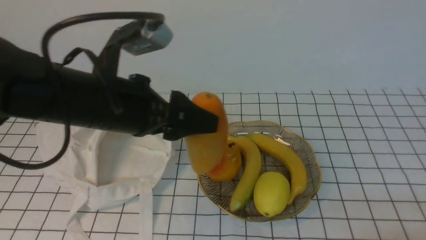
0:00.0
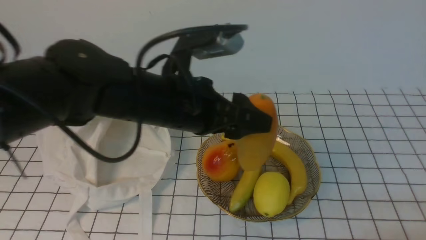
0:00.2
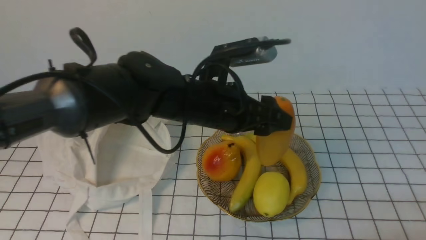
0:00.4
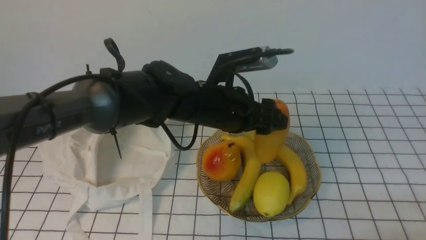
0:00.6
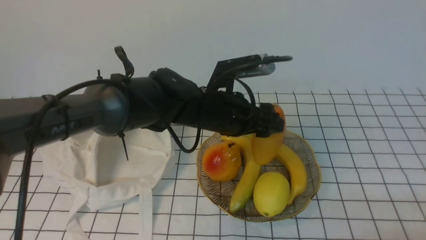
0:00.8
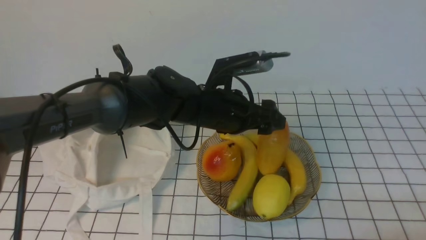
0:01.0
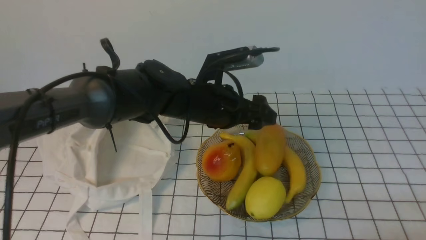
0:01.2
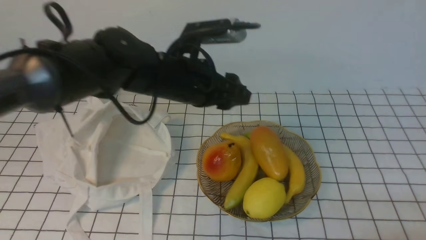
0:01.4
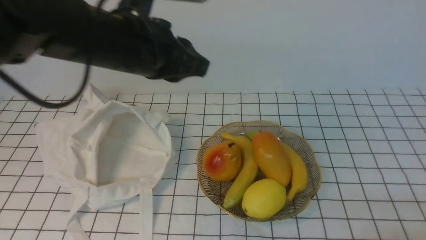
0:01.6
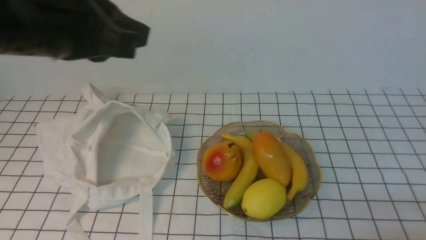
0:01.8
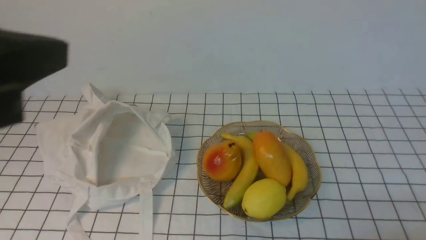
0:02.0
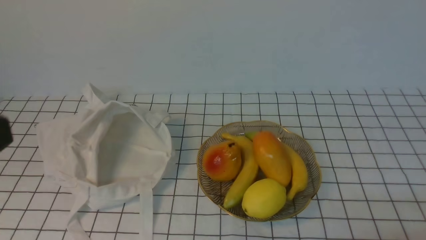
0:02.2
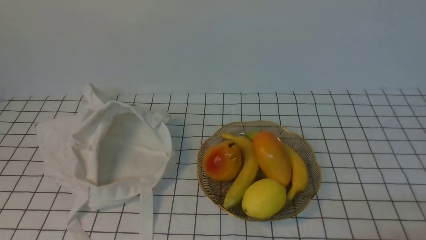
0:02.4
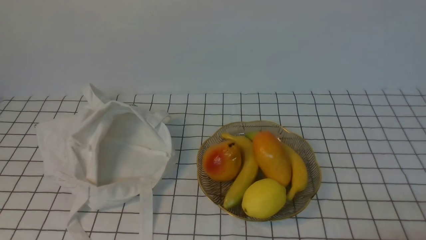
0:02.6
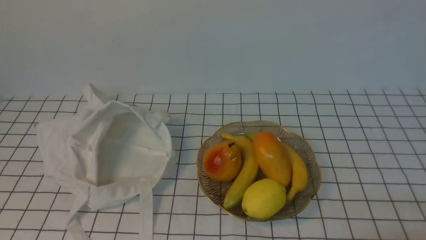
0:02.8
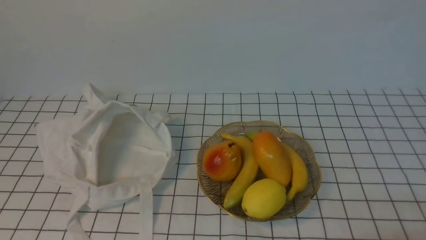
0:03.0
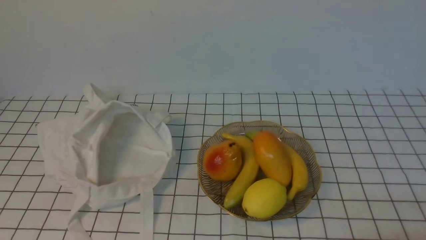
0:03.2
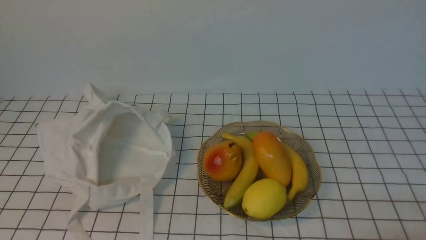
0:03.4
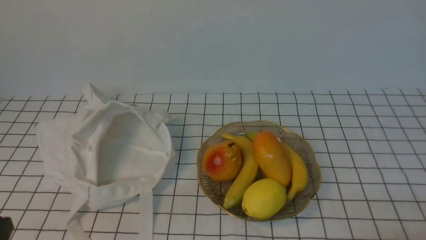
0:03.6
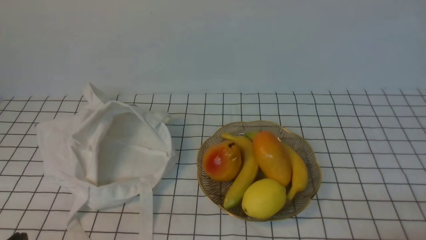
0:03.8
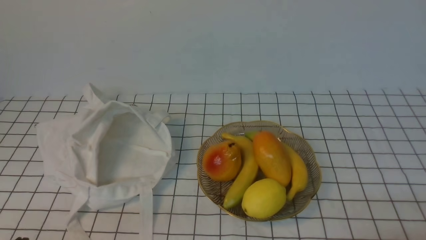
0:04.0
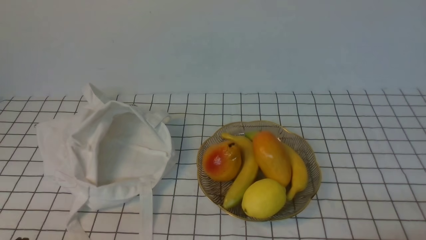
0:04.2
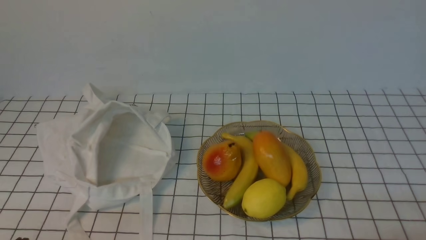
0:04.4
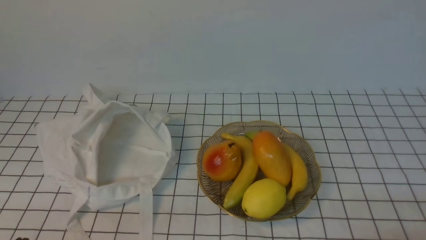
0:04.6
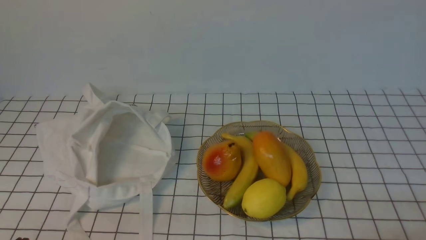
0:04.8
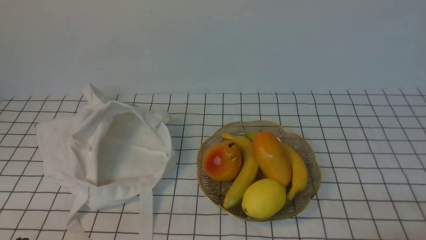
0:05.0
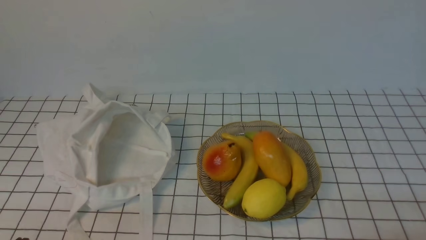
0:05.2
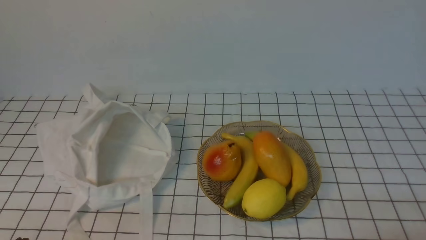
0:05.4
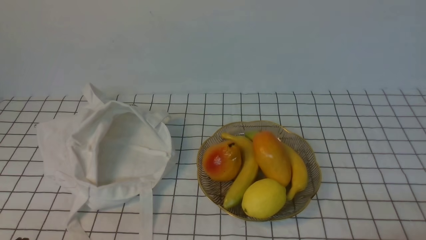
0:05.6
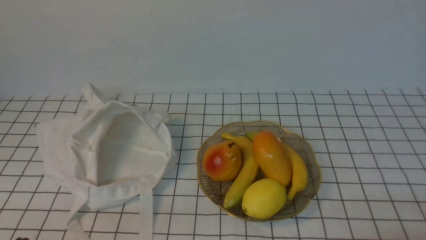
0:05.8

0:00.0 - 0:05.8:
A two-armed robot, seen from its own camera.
0:00.0 - 0:01.4: The left gripper moves to the right and forward, approximately 15 cm.
0:01.4 - 0:02.8: The left gripper moves backward and to the left, some 40 cm, and closes its fingers.
0:04.4 - 0:05.8: Neither gripper changes place.

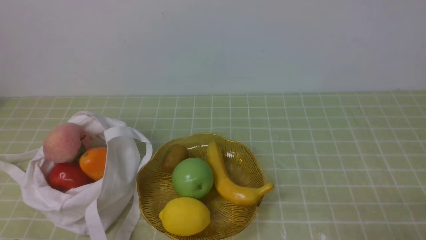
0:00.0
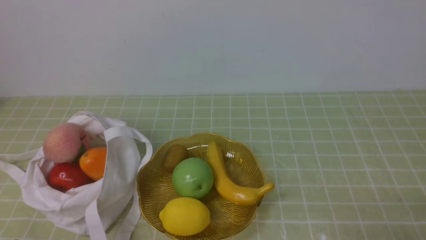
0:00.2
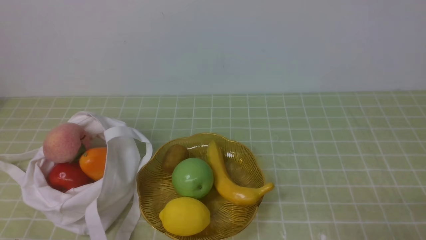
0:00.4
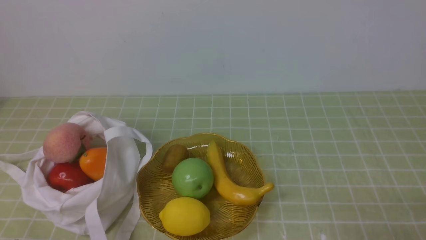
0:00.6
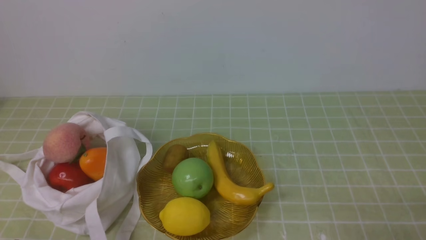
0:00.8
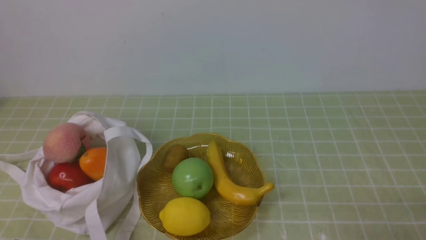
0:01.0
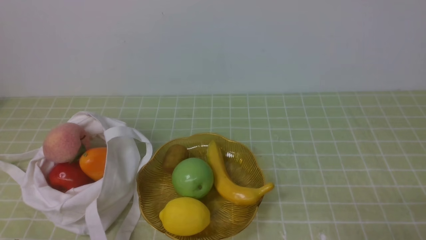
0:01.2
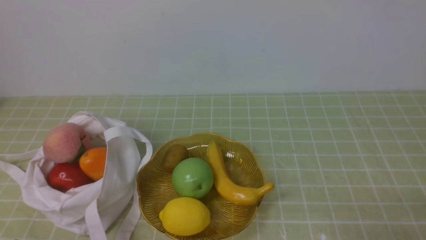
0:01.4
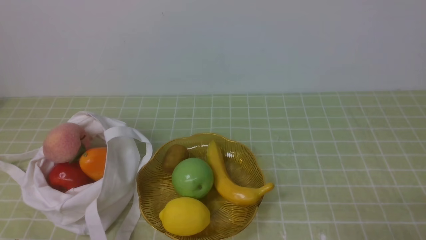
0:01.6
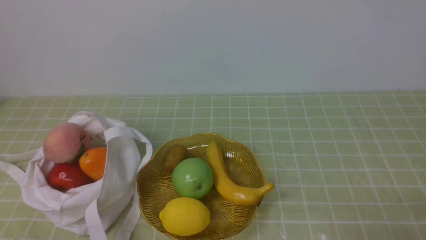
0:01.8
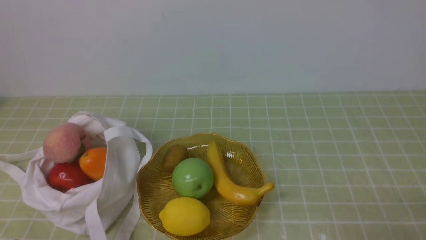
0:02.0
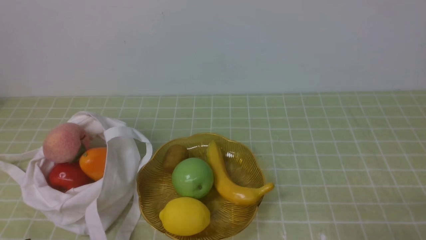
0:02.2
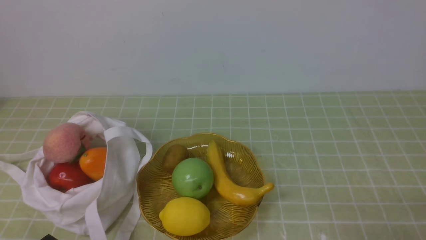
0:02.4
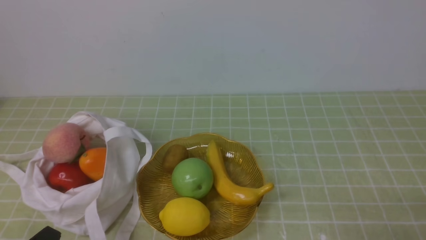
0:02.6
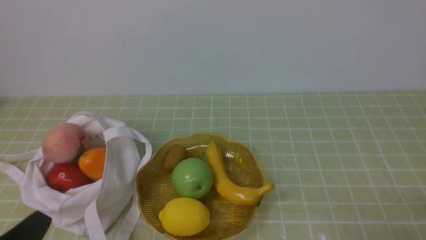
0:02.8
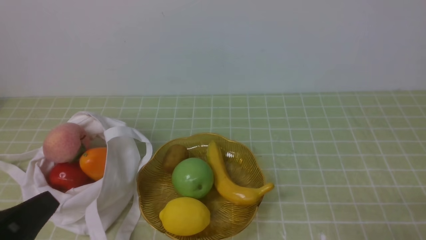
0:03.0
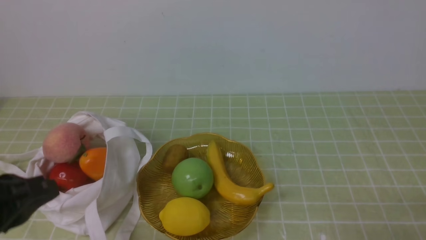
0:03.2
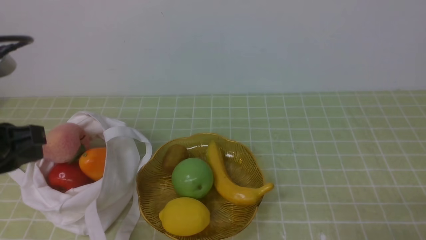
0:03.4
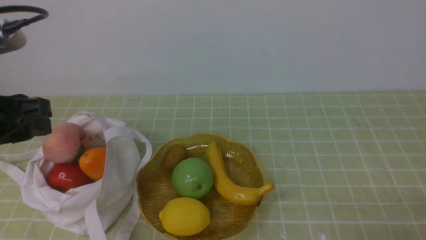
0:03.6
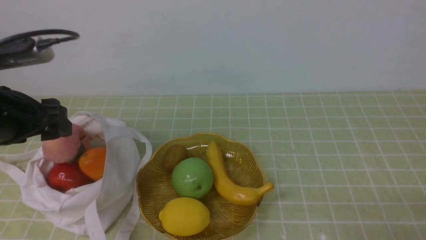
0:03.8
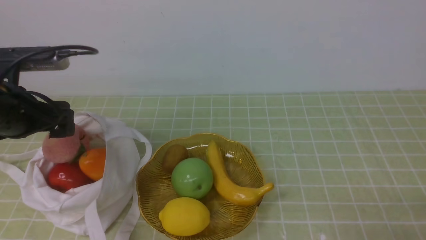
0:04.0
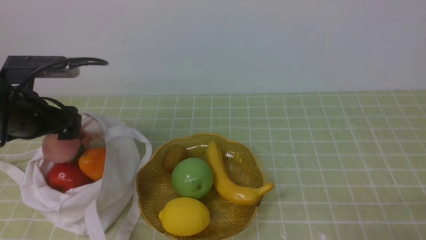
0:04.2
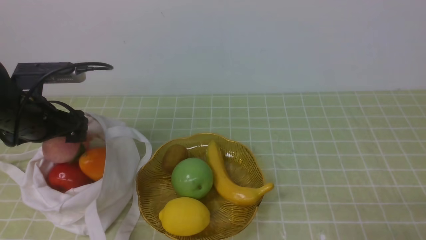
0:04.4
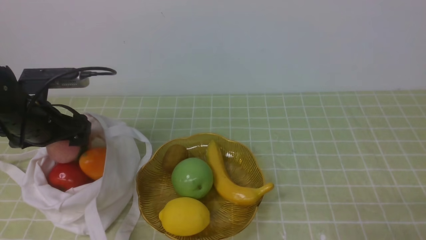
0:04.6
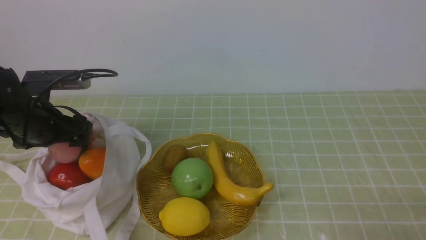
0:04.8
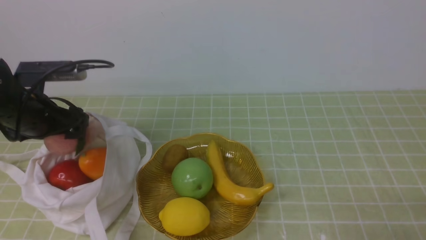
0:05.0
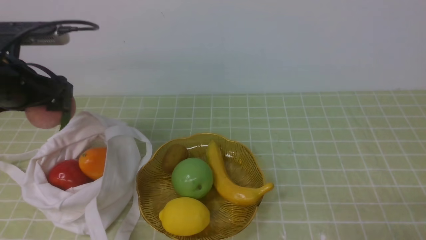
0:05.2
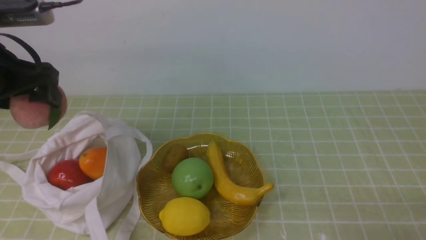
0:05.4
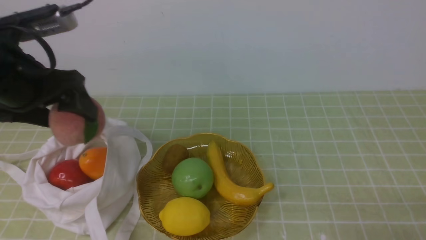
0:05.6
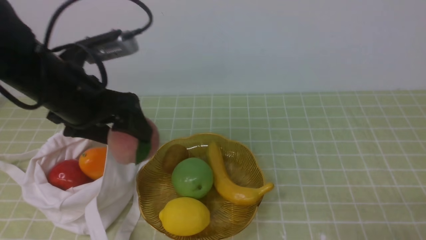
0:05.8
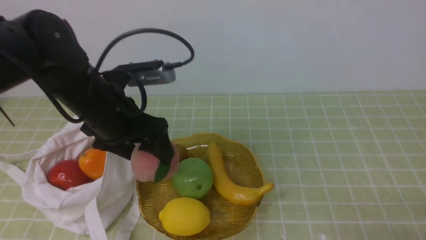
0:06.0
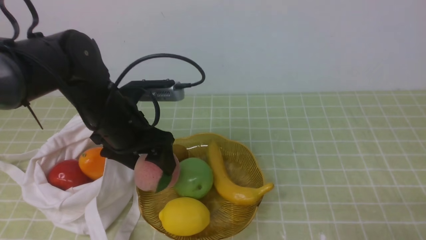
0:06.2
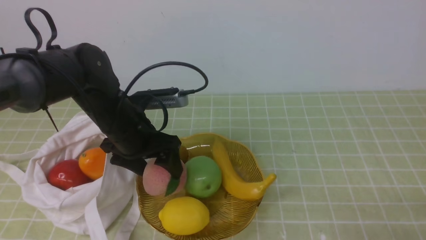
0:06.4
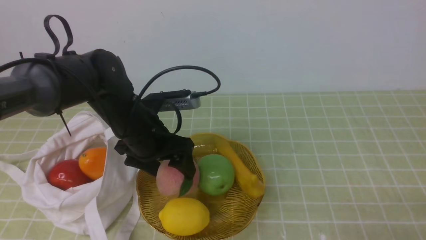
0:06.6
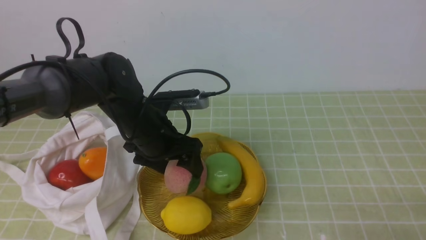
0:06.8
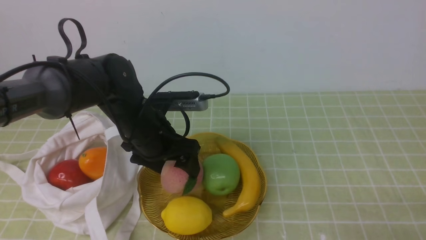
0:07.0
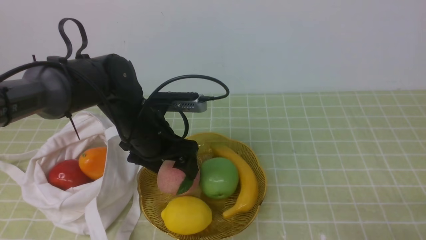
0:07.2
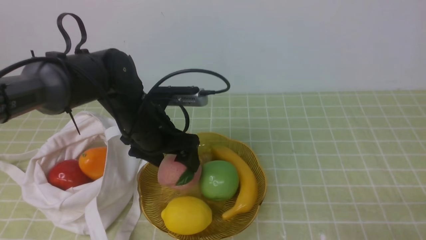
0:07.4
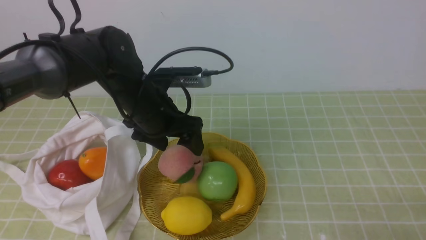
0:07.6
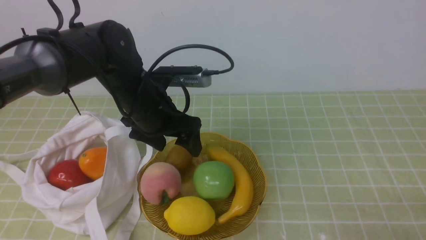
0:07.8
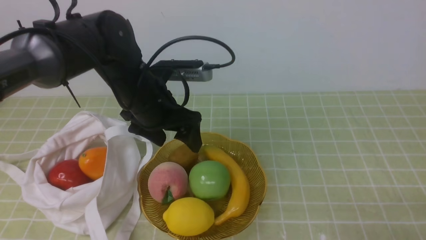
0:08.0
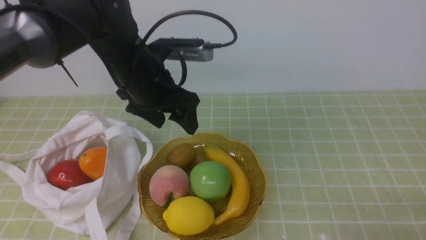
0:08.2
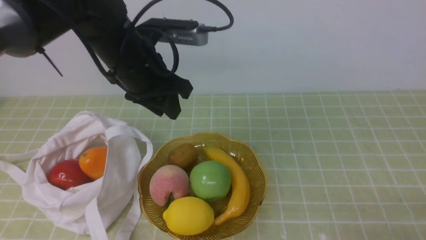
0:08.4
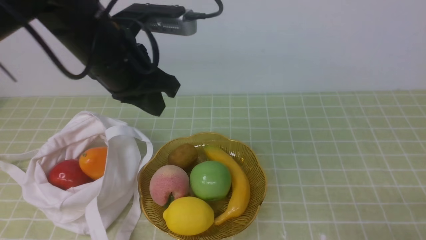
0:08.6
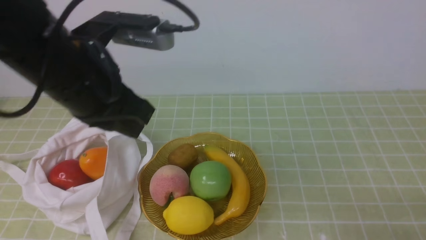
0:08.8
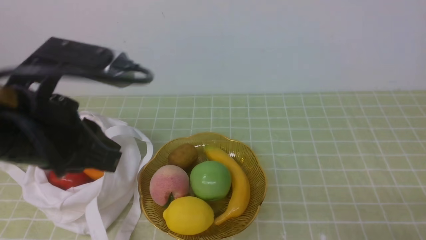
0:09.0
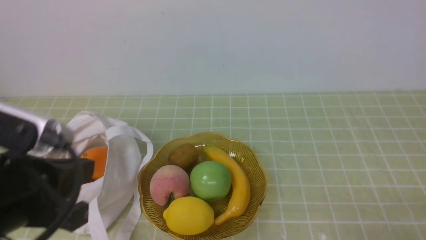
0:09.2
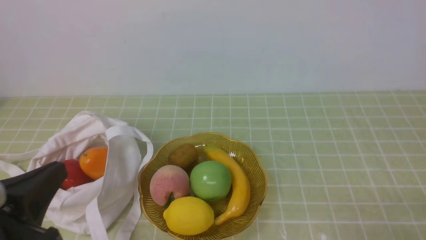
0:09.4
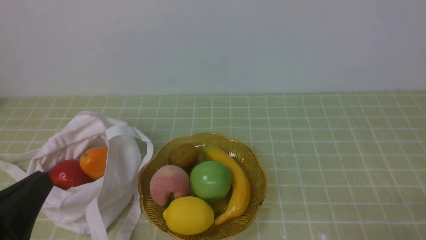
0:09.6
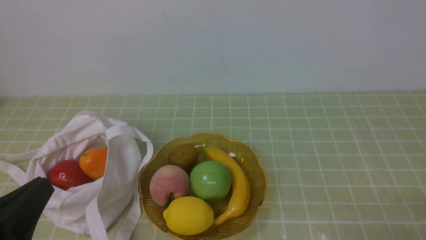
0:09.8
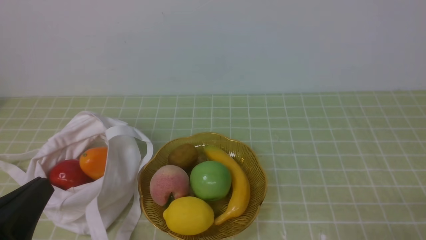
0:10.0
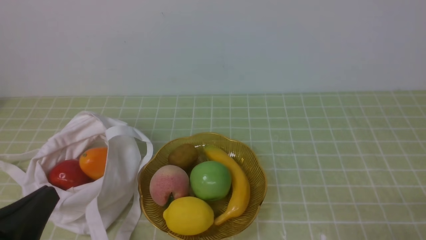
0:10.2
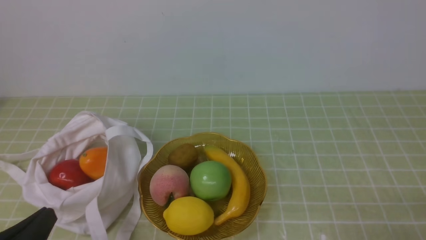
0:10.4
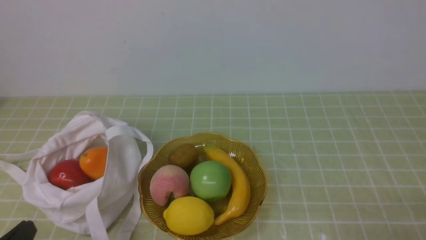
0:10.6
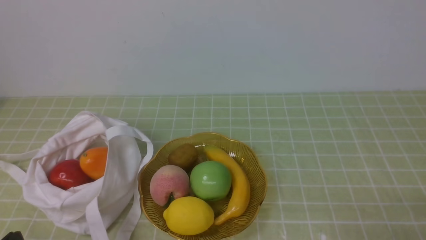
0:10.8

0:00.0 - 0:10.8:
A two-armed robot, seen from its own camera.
Step, 0:00.0 - 0:05.0: use the left arm to grab a peach from the bag.
Step, 0:05.4 - 0:07.6: use the left arm to put the peach into the empty plate on the right.
0:00.0 - 0:01.6: Neither gripper changes place.
0:01.6 - 0:03.0: The left gripper goes about 10 cm upward.
0:03.0 - 0:04.6: The left gripper shifts approximately 25 cm forward, and opens its fingers.
0:04.6 - 0:06.2: The left gripper shifts about 15 cm to the right.
0:06.2 - 0:07.8: The grippers move only a little.
0:07.8 - 0:09.2: The left gripper heads backward and to the left, covering about 25 cm, and closes.
0:09.2 - 0:10.8: The left gripper moves downward and backward, some 15 cm.
